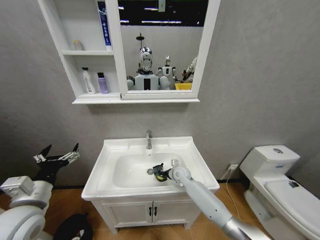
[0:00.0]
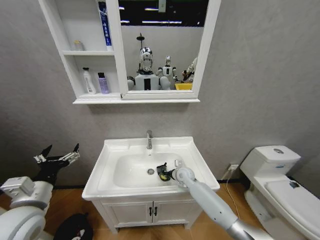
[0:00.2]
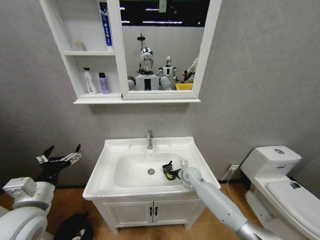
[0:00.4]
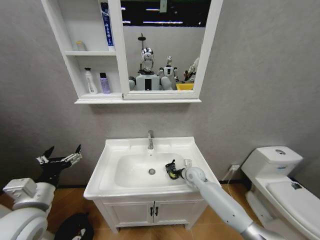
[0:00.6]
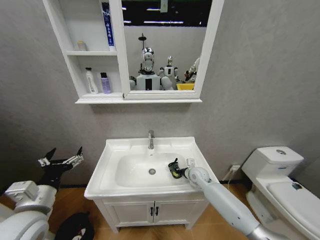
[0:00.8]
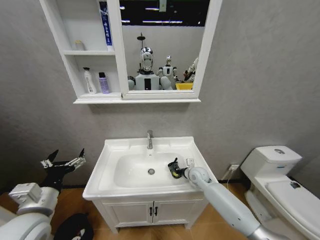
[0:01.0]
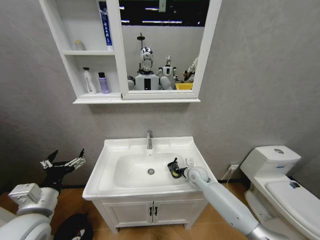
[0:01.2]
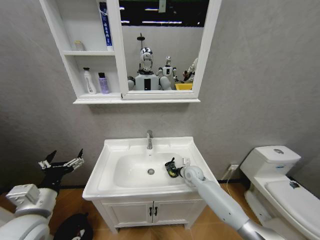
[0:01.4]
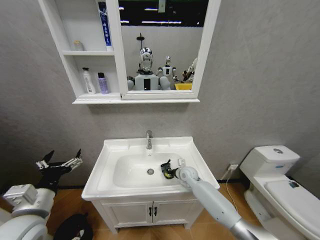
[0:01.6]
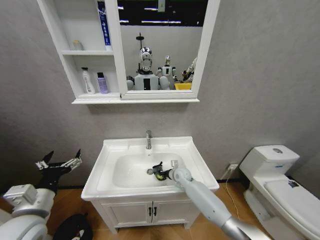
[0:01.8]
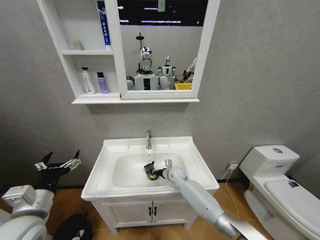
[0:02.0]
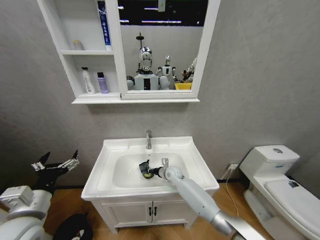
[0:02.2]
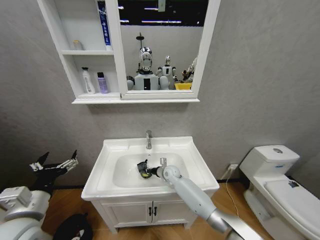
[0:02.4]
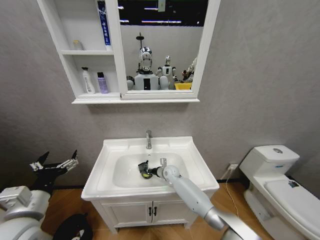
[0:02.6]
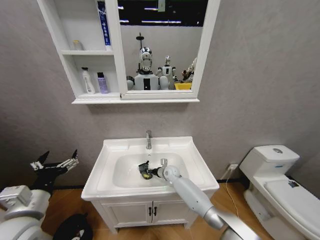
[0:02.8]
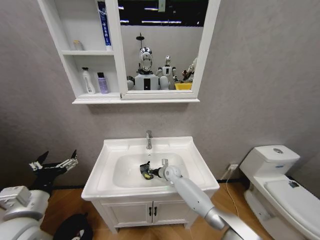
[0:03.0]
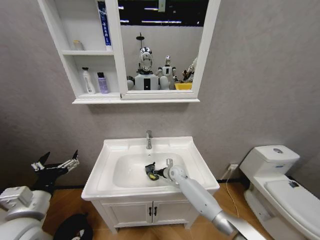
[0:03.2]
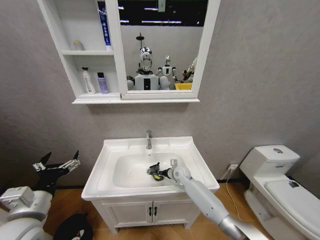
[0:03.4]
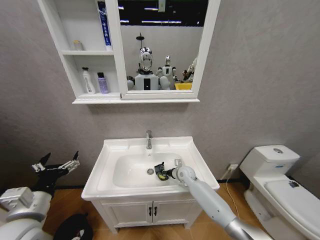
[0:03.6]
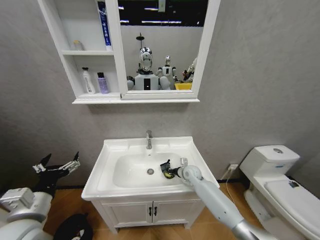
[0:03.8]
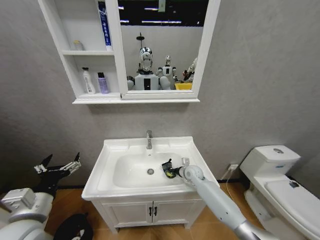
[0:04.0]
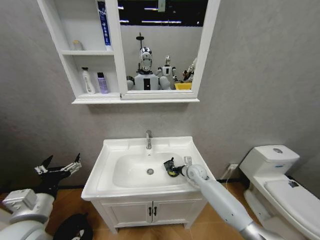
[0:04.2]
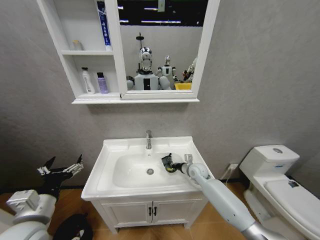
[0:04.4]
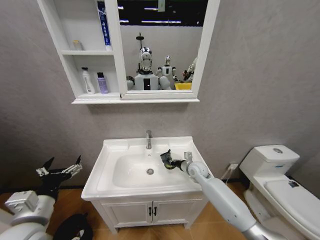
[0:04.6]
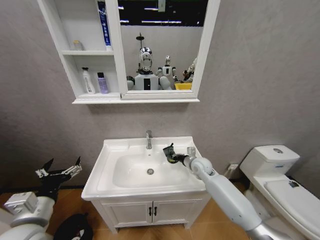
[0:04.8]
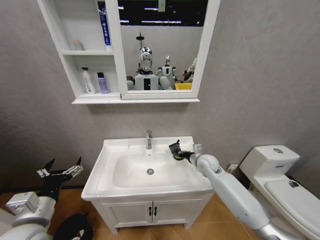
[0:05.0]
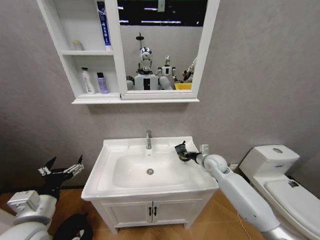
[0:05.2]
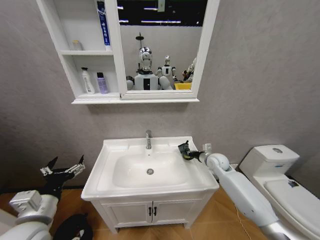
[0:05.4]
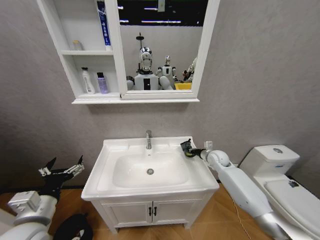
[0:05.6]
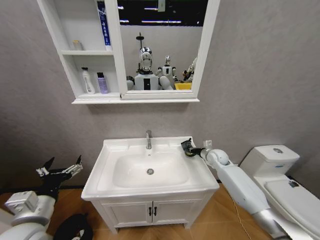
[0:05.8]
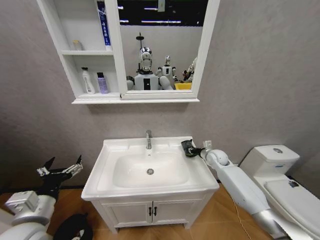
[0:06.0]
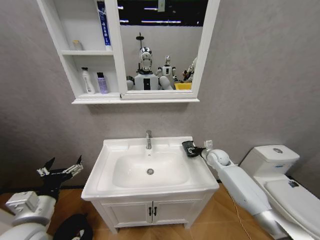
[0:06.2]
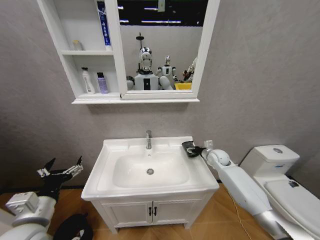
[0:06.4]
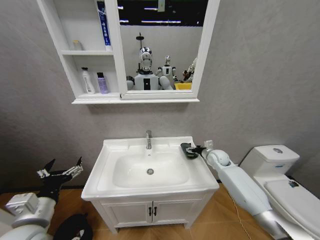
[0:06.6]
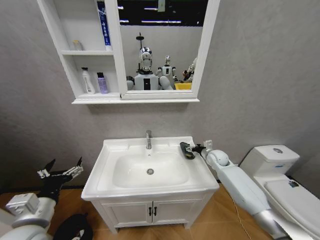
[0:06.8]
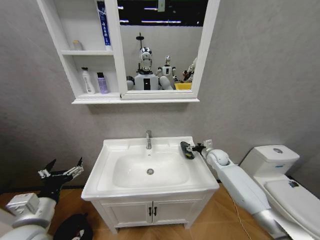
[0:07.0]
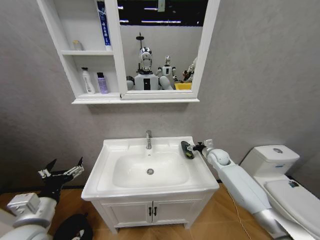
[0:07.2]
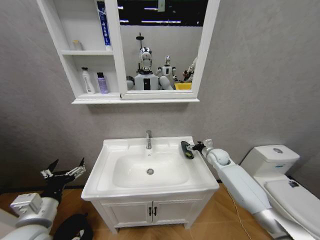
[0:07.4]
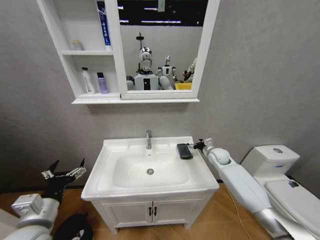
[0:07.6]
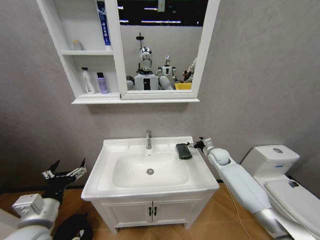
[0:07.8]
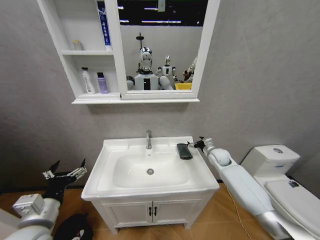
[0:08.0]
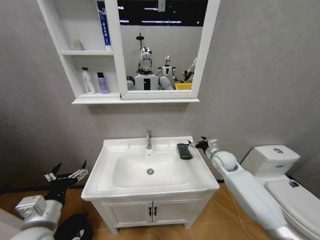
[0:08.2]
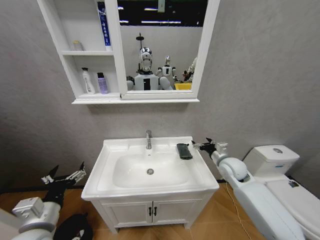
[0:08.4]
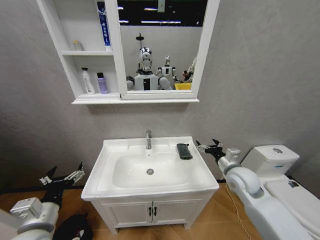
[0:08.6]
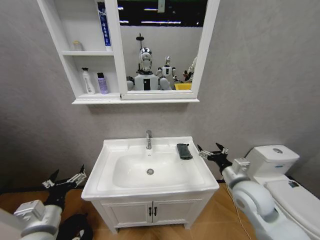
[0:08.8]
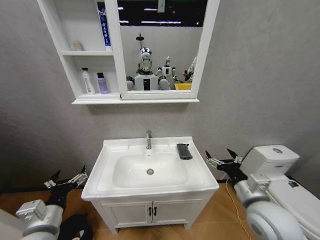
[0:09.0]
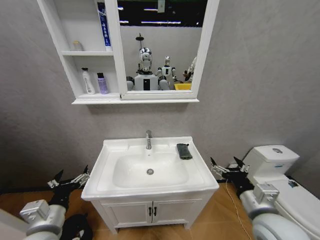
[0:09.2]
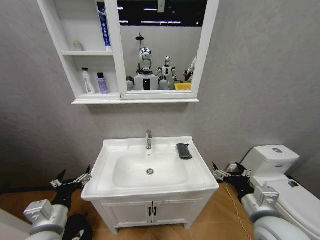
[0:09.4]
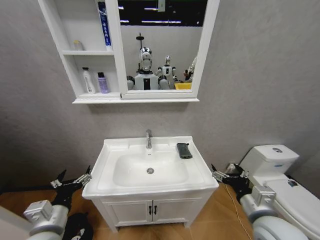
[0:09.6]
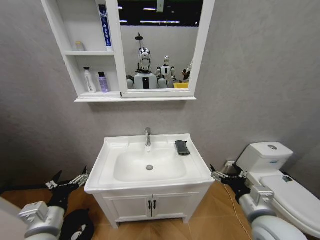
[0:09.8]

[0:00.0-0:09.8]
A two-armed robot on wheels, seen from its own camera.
Task of the whole recording: Move facial cleanser and shampoo from washbasin to cabinet, then wipe washbasin with towel.
0:00.0 to 0:01.4: The right gripper is displaced to the right by approximately 5 cm.
0:01.4 to 0:02.8: The right gripper goes some 10 cm to the left.
0:02.8 to 0:04.2: The right gripper moves to the right and upward, some 15 cm.
0:04.2 to 0:05.6: The right gripper heads to the right and upward, covering approximately 15 cm.
0:05.6 to 0:07.0: The right gripper opens its fingers.
0:07.0 to 0:08.4: The right gripper travels backward and upward by roughly 10 cm.
0:08.4 to 0:09.8: The right gripper heads backward, covering roughly 20 cm.

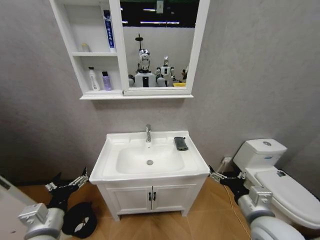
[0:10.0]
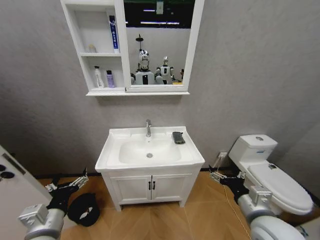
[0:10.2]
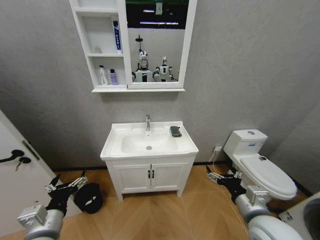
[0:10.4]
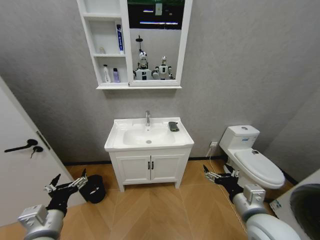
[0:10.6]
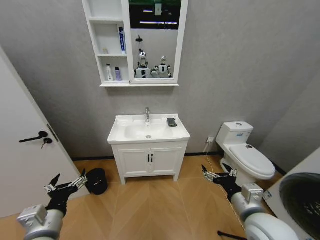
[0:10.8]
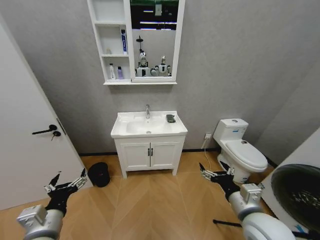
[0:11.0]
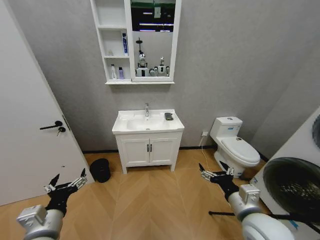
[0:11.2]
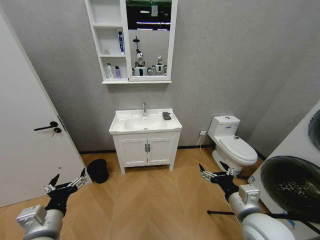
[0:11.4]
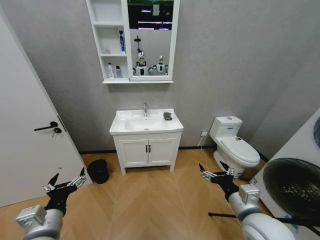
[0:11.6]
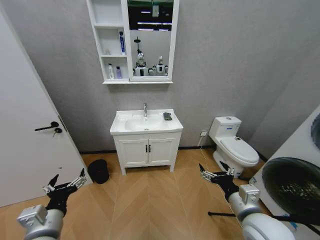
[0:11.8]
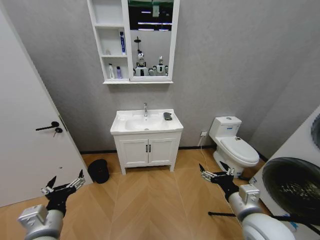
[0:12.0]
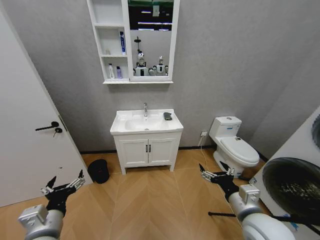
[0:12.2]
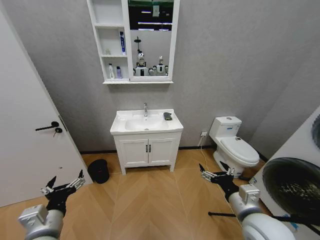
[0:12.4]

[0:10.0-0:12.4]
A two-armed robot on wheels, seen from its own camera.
Task of the whole recording: Move facial cleanser and shampoo from washbasin to cabinet, then wipe washbasin with towel.
0:11.2 to 0:12.4: Both grippers stay about where they are.
